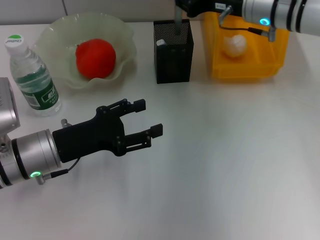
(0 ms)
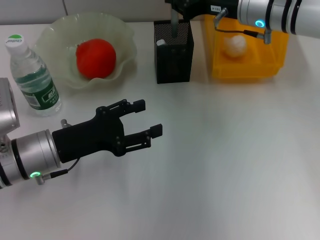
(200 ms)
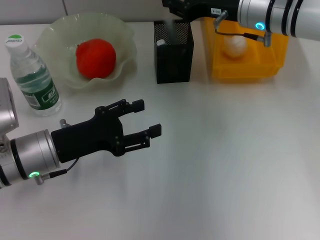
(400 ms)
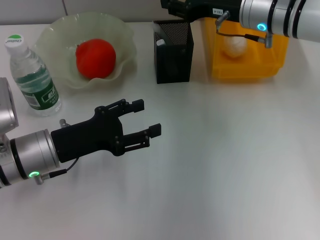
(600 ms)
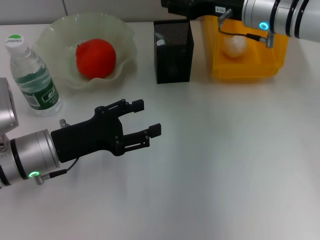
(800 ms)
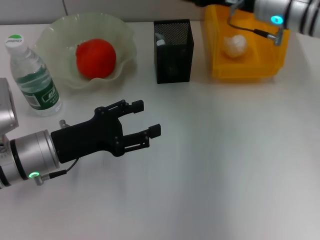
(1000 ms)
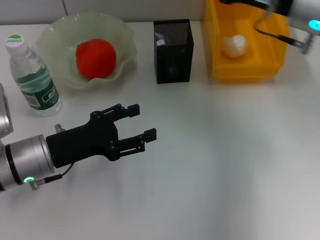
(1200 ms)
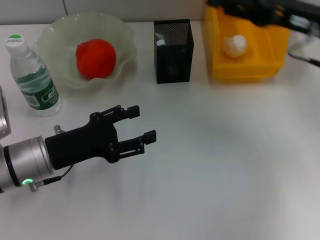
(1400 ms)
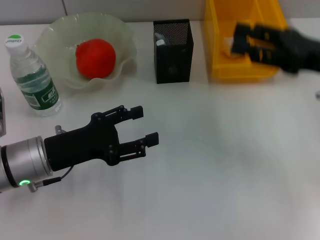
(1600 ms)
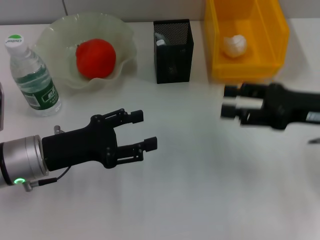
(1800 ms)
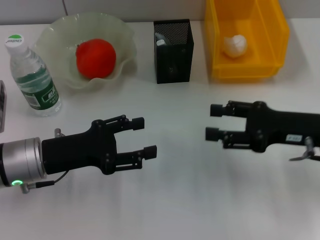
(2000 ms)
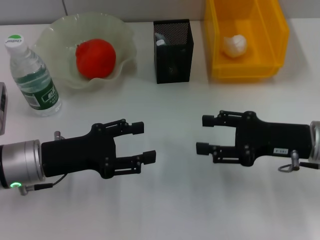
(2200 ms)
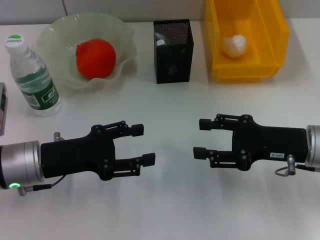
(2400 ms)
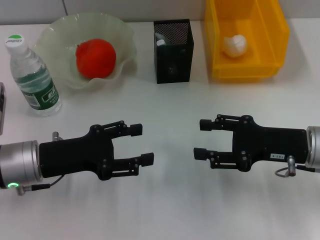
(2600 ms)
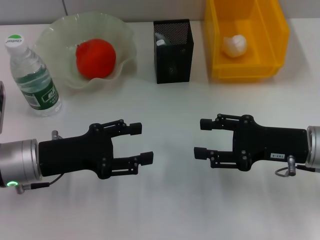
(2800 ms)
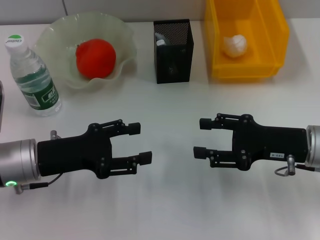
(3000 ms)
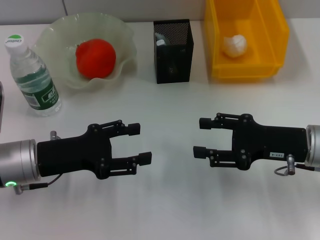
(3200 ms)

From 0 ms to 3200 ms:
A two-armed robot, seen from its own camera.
From 0 ms to 1600 ms: The right gripper shifts some 15 cm backward and to the right, and opens its fingers.
From 1600 ms to 3200 ms: The right gripper moves downward, some 10 cm.

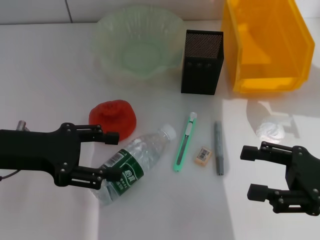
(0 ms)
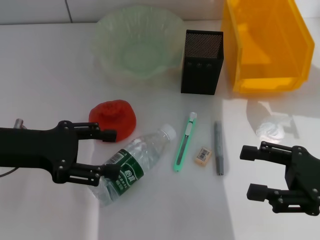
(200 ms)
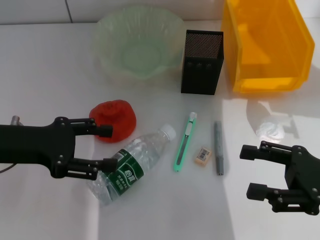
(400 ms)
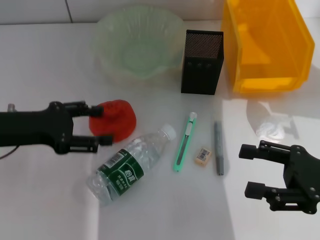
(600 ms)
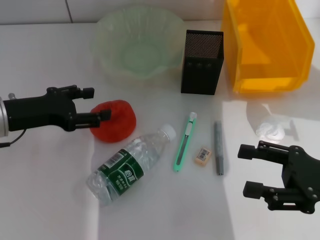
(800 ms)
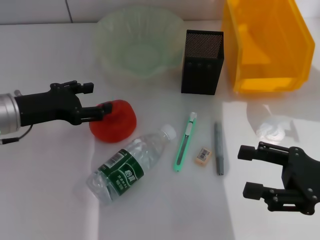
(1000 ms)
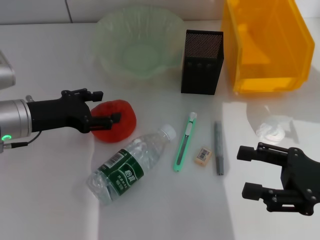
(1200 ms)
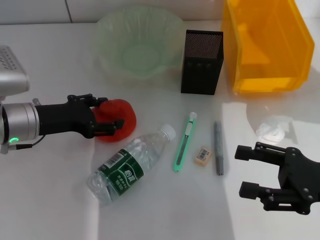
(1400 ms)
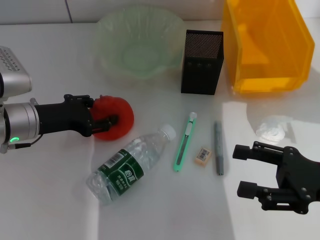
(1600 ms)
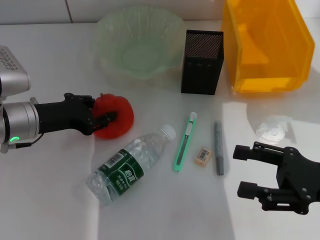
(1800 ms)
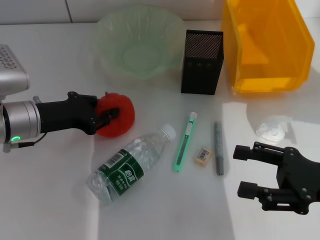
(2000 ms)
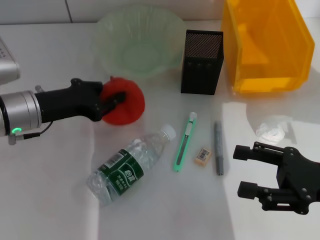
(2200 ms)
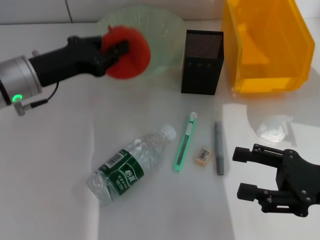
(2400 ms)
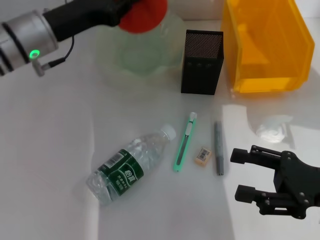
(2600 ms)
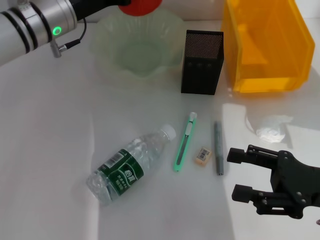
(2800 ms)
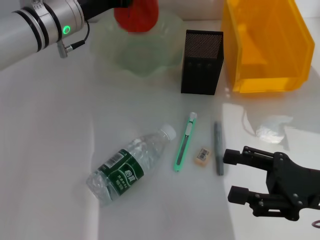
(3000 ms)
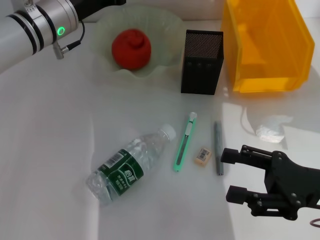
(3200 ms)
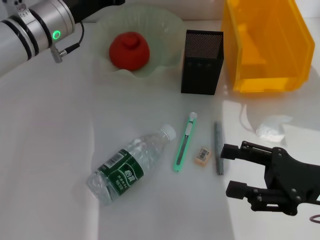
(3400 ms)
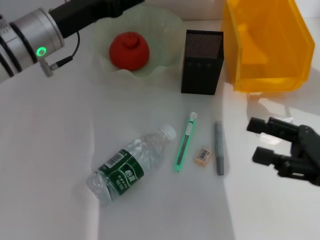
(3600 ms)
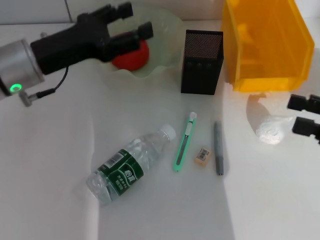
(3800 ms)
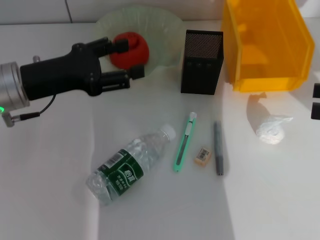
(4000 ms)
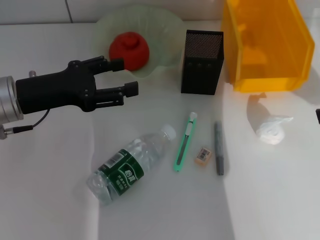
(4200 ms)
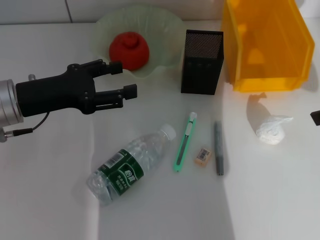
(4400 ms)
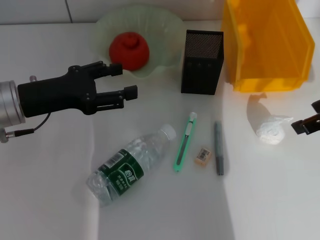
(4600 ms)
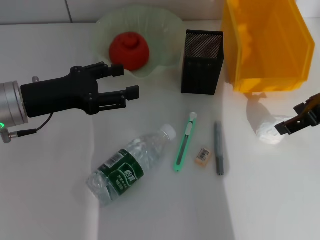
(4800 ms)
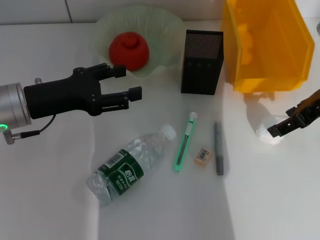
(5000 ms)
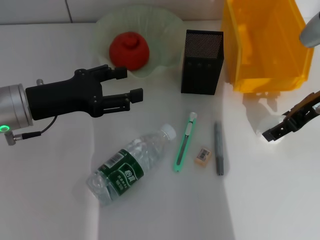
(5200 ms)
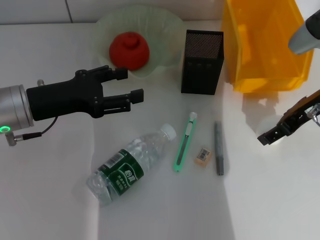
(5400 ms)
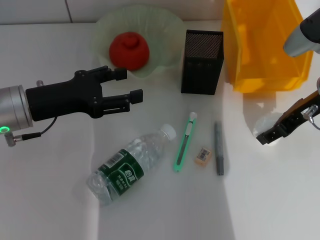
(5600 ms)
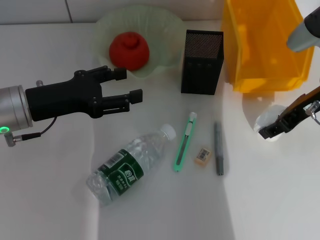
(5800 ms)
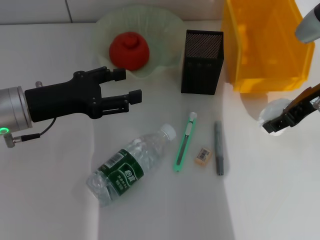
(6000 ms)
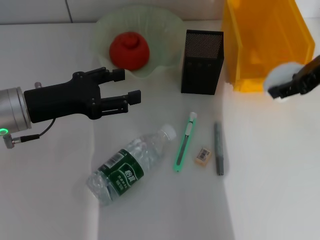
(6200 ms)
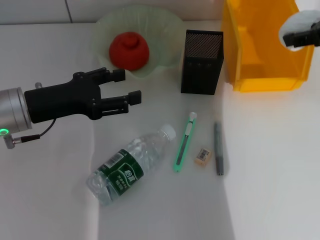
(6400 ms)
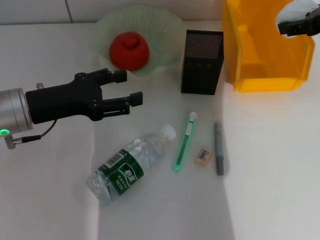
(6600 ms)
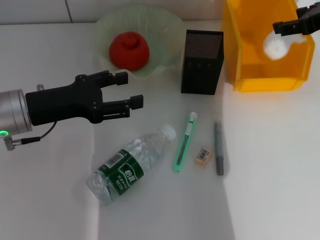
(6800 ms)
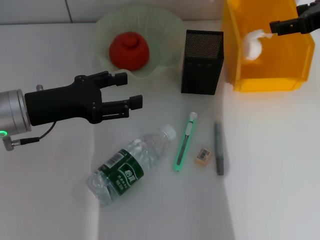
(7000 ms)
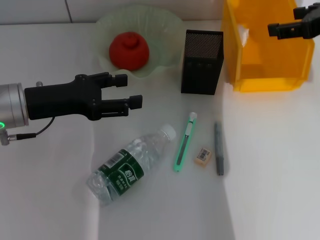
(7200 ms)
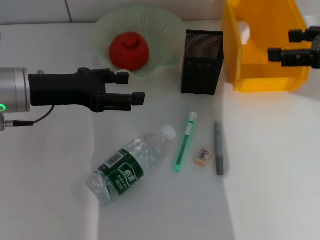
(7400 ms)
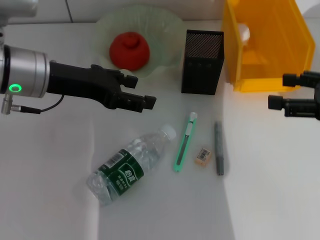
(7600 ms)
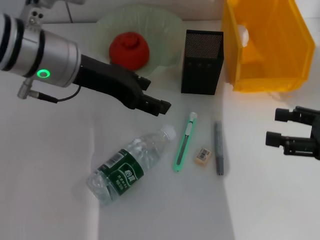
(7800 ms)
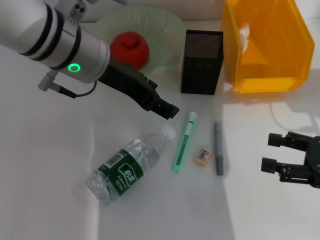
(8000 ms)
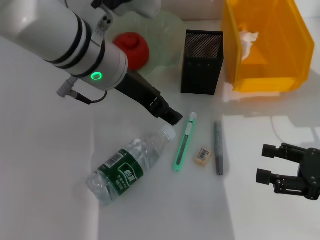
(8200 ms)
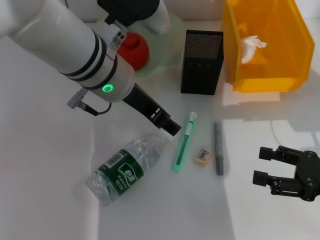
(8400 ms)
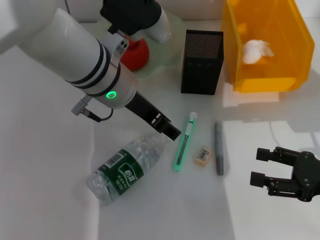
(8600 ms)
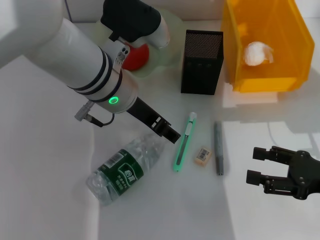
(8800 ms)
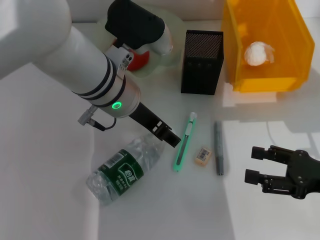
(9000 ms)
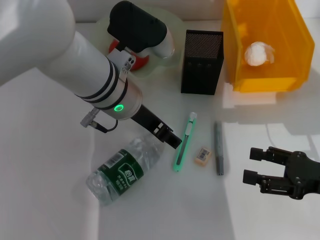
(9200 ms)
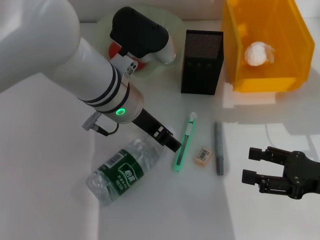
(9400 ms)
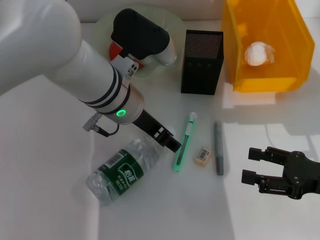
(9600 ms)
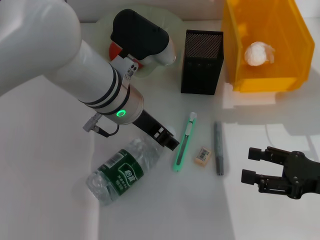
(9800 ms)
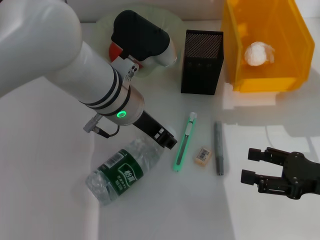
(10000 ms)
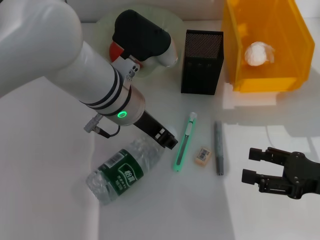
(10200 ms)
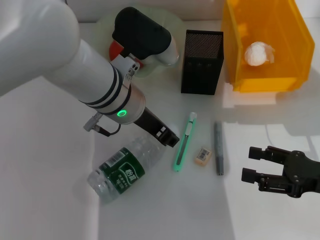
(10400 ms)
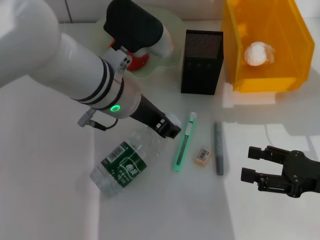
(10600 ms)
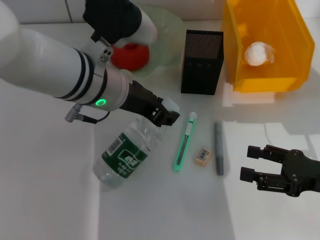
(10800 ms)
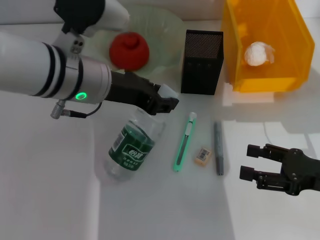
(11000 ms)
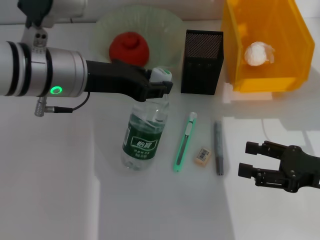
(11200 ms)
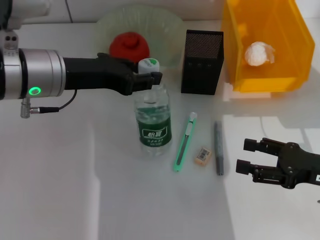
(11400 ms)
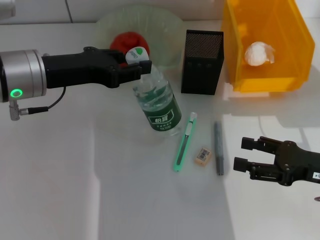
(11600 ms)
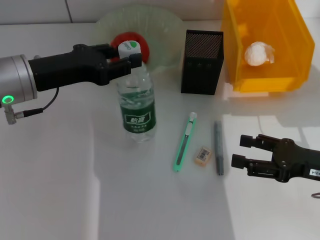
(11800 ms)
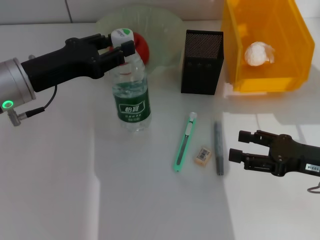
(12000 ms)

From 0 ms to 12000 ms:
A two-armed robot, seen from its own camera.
Step, from 0 ms to 1800 ms: Grab the orange with the left hand.
Step, from 2200 ms to 3200 ms: Place the orange into the fruit bowl with the left hand.
Step, from 3400 ms to 5400 ms: Grab the paper ball with the right hand.
Step, from 5800 ms to 7000 ms: Place the paper ball into the trash can with the right hand.
Step, from 7200 ms to 10200 ms: Grab the water bottle with the left hand.
From 0 ms to 1600 ms: The left gripper goes about 10 cm forward and downward.
From 1600 ms to 3000 ms: The left gripper travels forward, upward and to the right by some 15 cm, and closes its fingers.
From 3000 ms to 4400 ms: The right gripper moves upward and forward, approximately 20 cm. Meanwhile the left gripper moves backward and to the left, approximately 15 cm, and opens up.
From 4400 ms to 6000 ms: The right gripper is displaced downward and forward by some 10 cm, and closes up.
From 6000 ms to 7600 ms: The right gripper travels backward and to the right by about 10 cm, and opens up. The left gripper travels upward by some 5 cm.
From 7600 ms to 9000 ms: The left gripper is displaced to the right by some 10 cm; the right gripper moves downward and backward, about 10 cm.
From 9000 ms to 10400 ms: The left gripper closes.
From 10400 ms to 12000 ms: The left gripper is displaced to the left by some 15 cm.

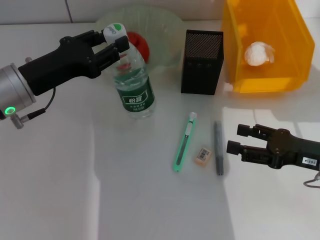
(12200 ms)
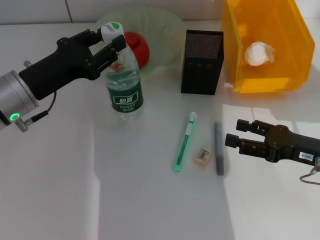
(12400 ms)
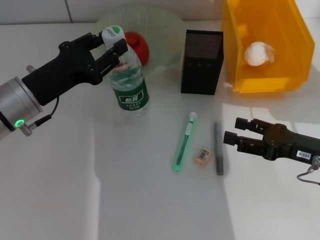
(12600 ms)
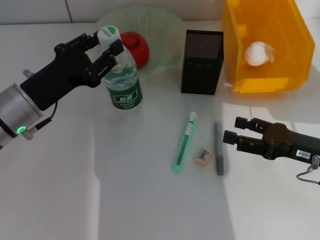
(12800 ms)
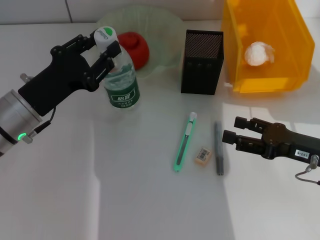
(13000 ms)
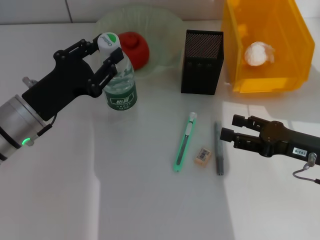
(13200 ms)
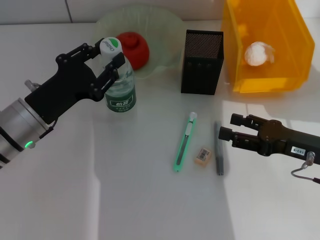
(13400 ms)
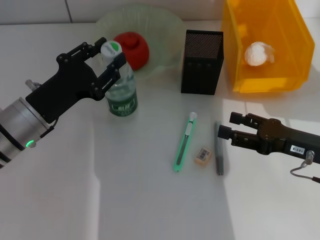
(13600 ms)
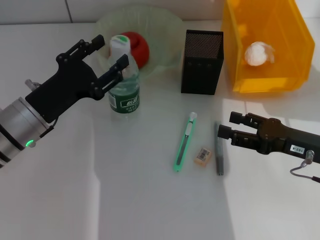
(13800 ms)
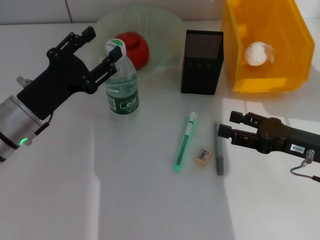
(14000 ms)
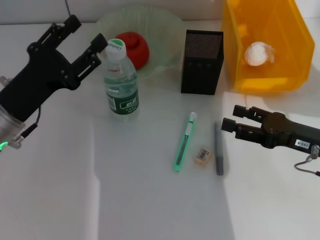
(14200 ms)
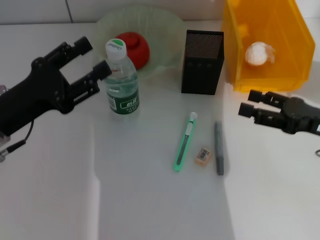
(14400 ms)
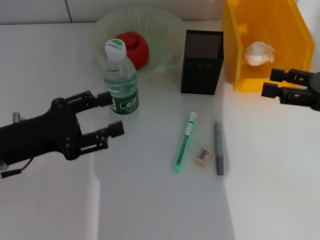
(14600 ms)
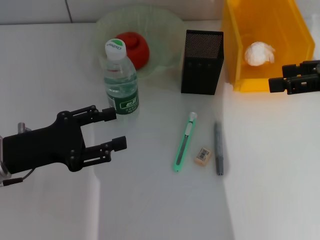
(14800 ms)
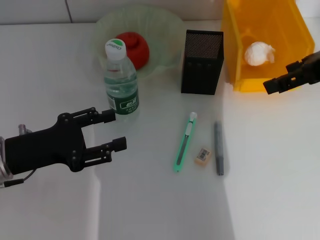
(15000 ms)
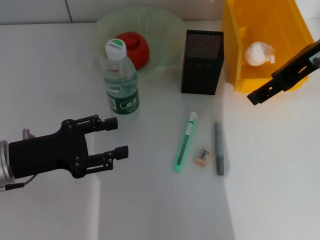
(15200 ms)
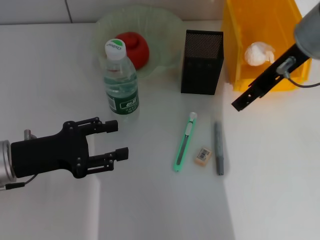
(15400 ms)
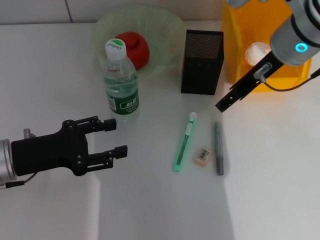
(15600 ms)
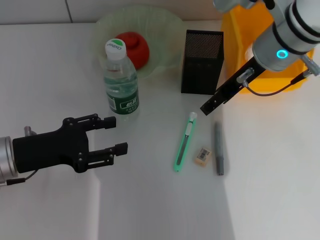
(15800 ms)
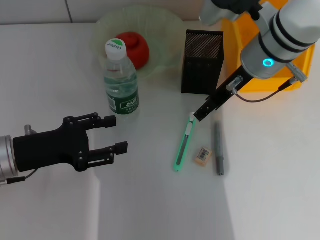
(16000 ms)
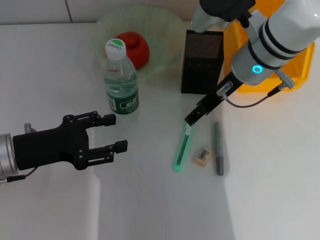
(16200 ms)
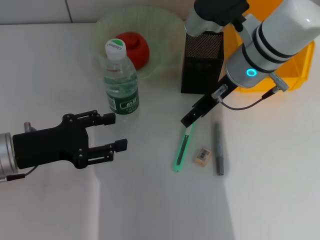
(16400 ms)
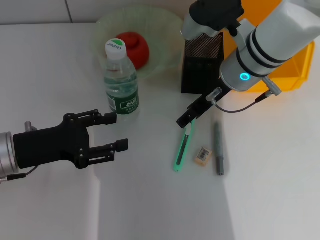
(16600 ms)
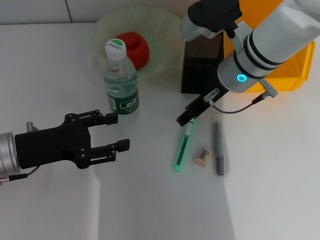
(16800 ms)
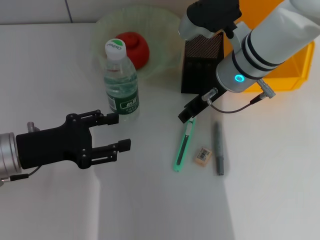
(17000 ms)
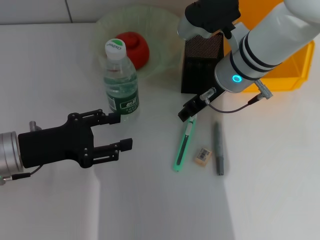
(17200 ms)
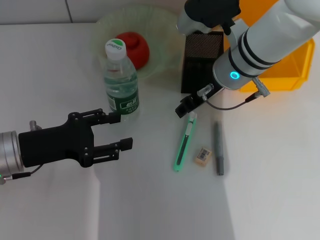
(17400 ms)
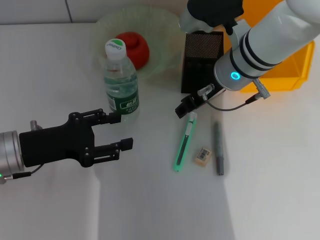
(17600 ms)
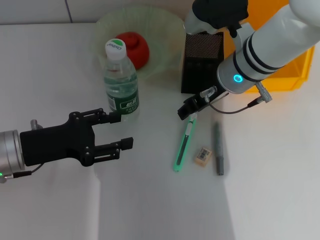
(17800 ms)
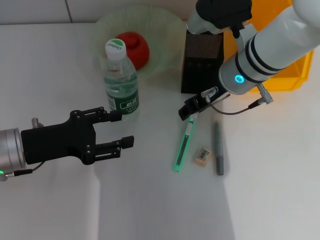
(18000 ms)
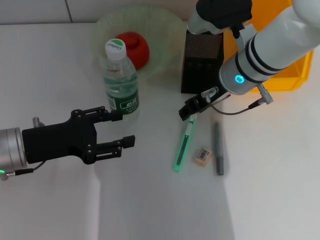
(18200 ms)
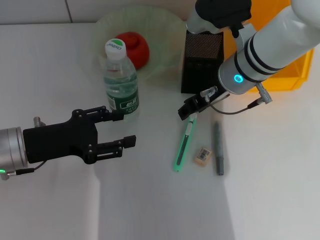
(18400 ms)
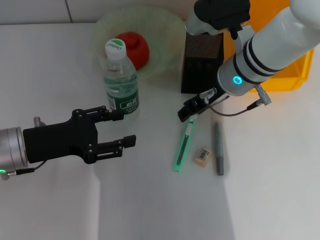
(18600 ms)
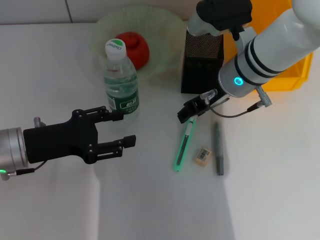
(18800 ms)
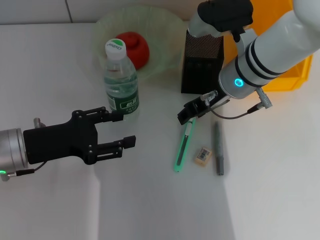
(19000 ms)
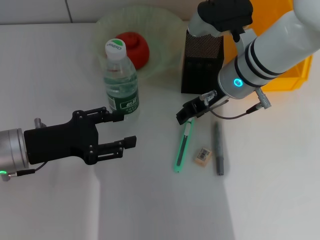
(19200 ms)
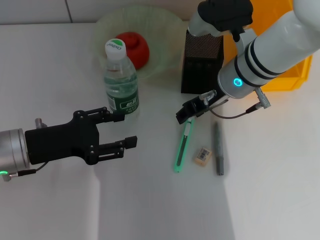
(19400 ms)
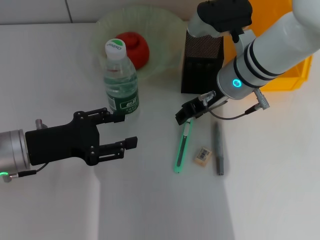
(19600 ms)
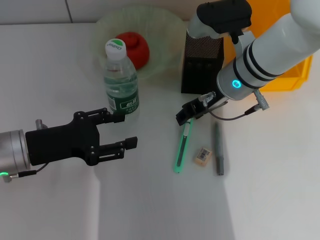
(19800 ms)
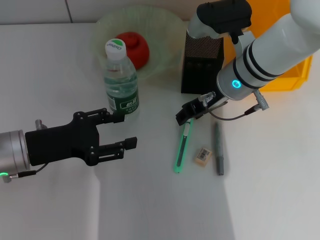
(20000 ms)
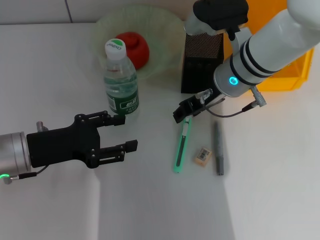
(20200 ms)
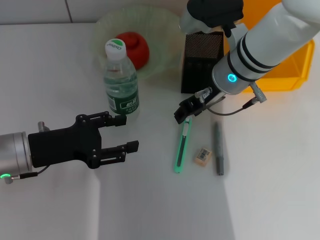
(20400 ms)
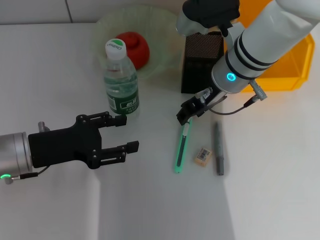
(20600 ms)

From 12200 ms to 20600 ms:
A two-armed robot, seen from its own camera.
From 12200 ms to 13600 ms: The left gripper changes place by approximately 5 cm.
From 13600 ms to 15000 ms: The right gripper heads upward, covering some 20 cm. The left gripper changes place by approximately 5 cm.
From 15000 ms to 16400 ms: The right gripper heads to the left, downward and forward, covering approximately 20 cm.
From 16400 ms to 17800 ms: The right gripper closes.
From 17800 ms to 19200 ms: Neither gripper changes place.
From 19200 ms to 20600 ms: The grippers move only a little.
